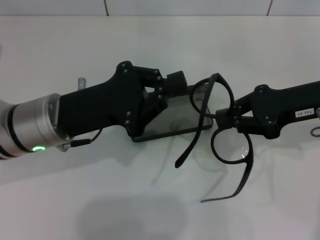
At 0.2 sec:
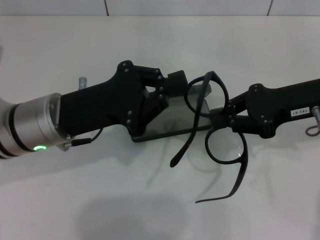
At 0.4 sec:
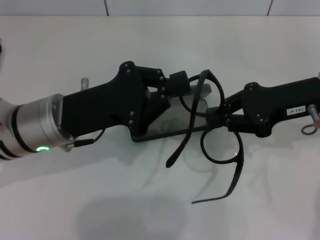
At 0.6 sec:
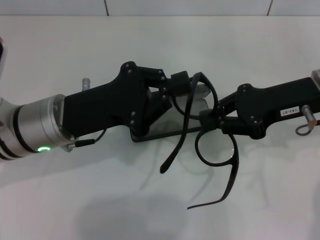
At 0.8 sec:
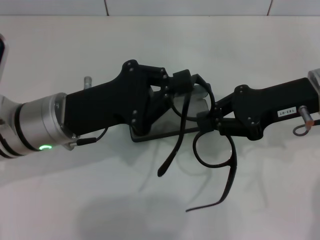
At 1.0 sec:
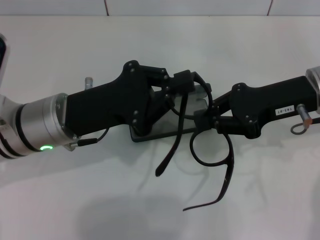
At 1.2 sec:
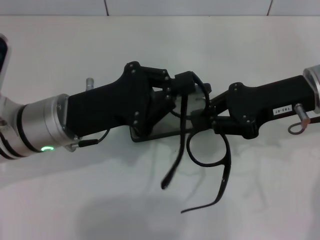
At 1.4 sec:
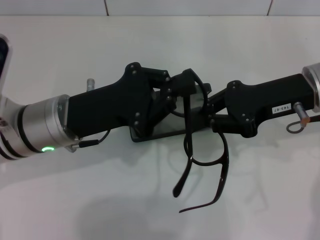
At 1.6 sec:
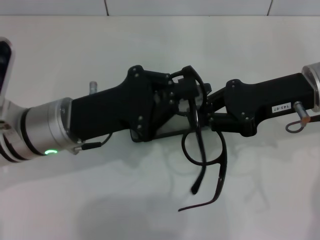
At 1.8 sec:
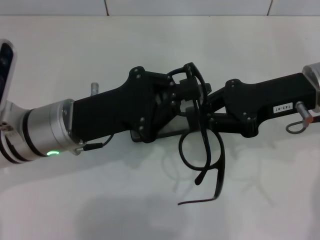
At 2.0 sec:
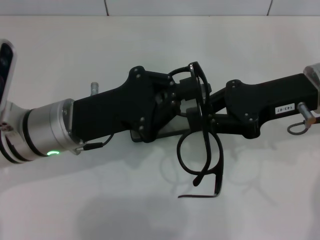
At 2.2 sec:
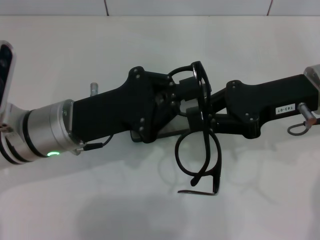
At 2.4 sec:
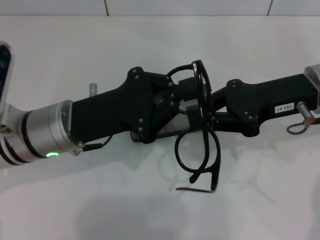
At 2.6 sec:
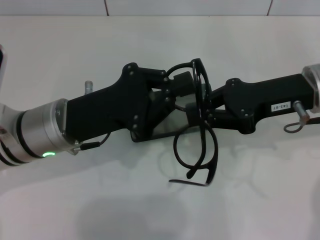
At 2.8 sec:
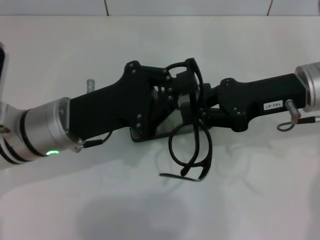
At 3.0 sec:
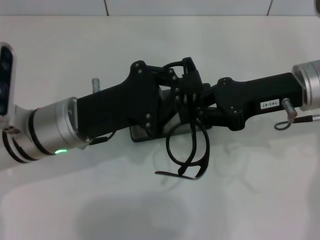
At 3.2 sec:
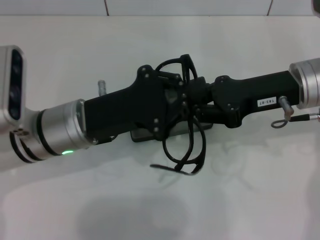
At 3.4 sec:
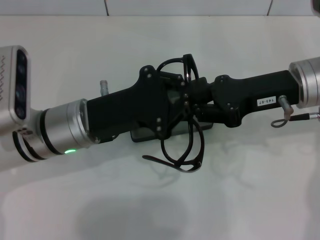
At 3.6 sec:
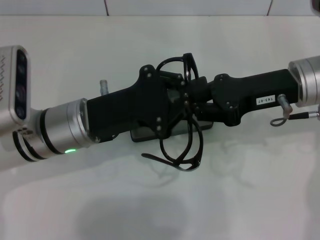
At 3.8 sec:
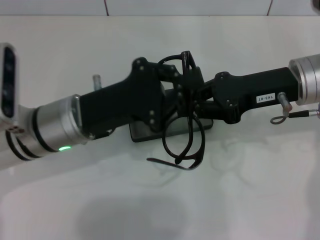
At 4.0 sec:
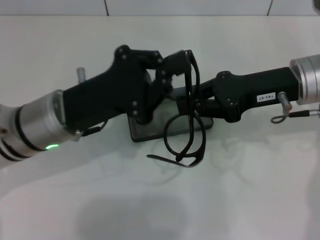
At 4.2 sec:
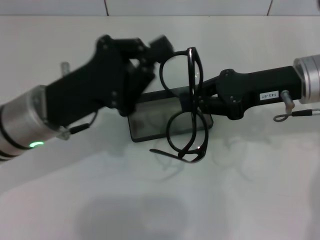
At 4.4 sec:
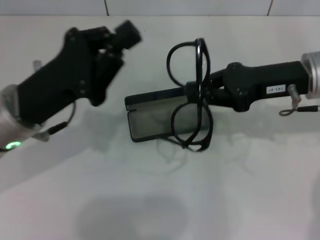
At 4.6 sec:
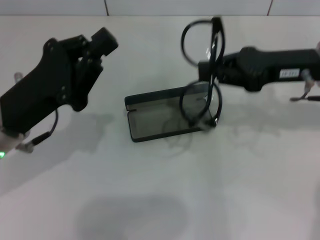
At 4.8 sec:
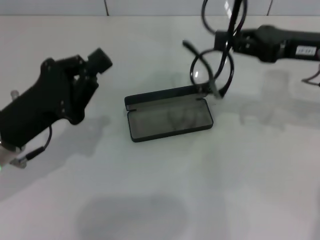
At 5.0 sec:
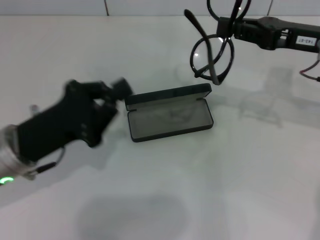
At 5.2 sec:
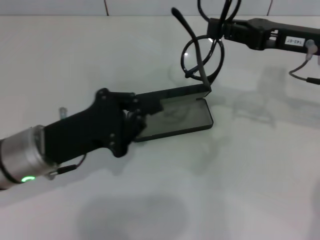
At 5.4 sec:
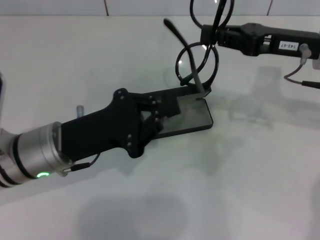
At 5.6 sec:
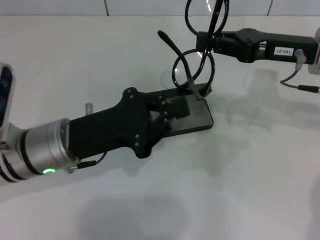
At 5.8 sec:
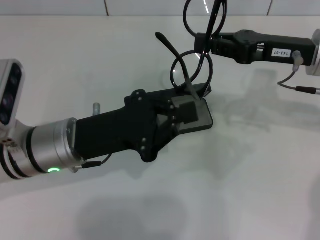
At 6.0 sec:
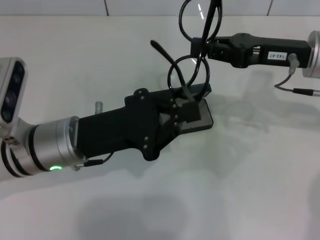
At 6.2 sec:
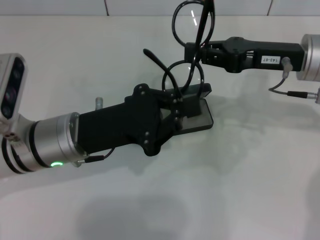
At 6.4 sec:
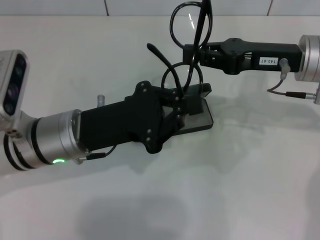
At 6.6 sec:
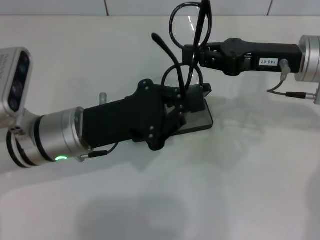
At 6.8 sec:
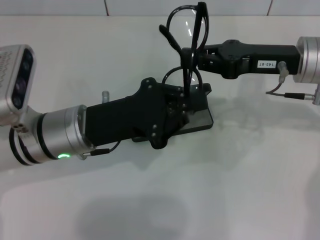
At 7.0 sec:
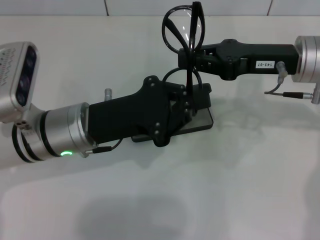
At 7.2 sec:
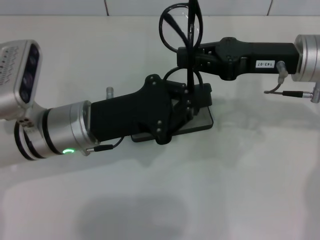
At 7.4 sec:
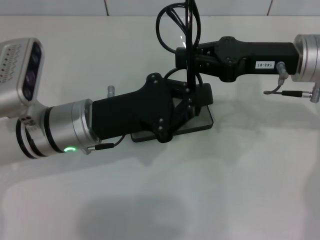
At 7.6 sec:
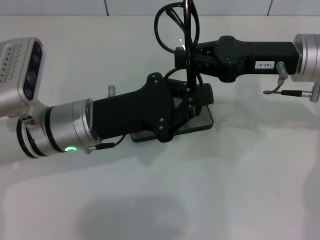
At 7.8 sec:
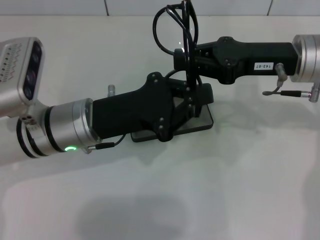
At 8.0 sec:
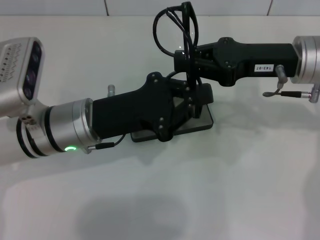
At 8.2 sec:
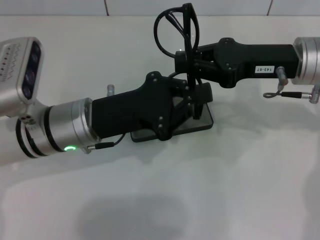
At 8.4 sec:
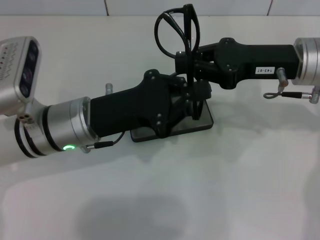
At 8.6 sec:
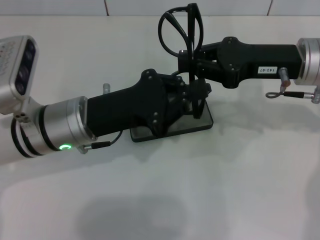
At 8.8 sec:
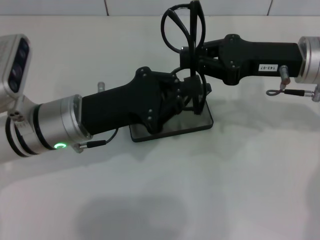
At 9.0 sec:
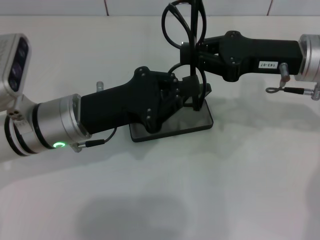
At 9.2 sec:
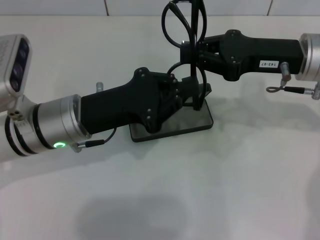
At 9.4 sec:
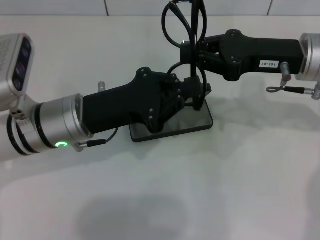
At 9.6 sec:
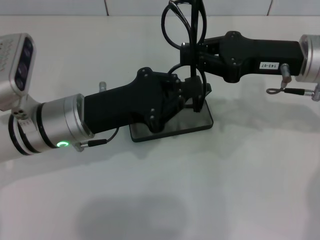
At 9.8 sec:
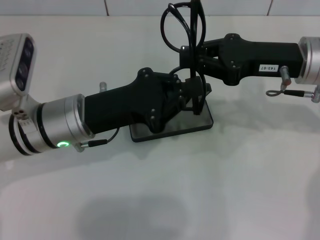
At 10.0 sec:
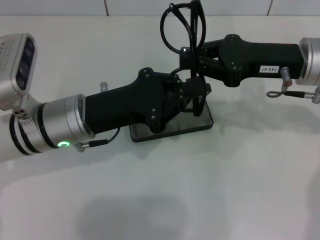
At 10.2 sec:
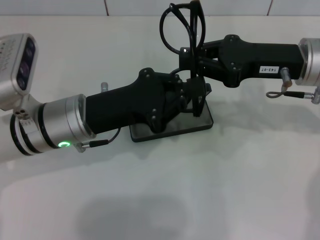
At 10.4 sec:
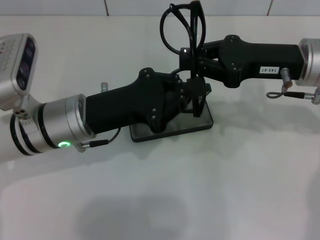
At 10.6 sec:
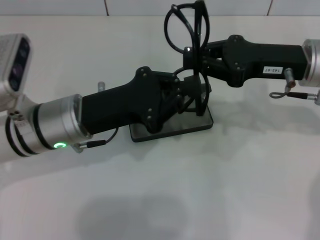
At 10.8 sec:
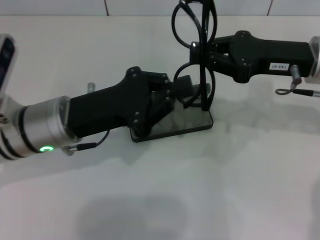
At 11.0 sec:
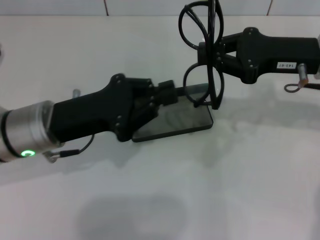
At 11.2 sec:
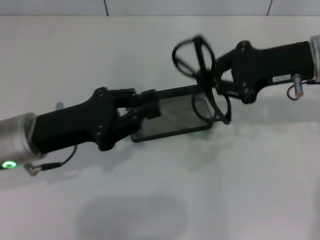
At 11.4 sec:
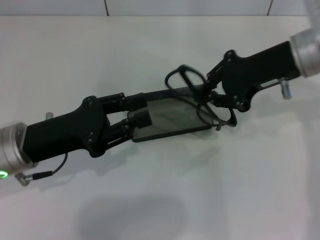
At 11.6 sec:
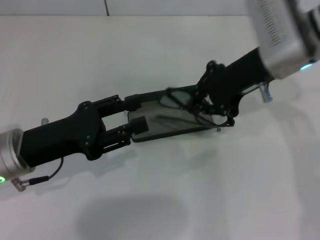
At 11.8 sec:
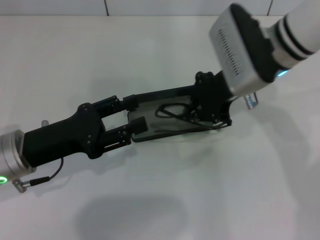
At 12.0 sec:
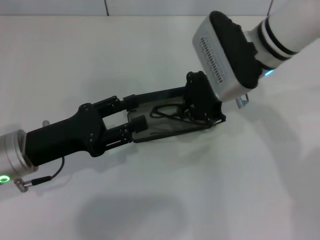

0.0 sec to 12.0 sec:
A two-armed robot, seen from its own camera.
Step, 0.0 sec to 10.2 sec: Fold the frame with your left hand.
0.0 sec to 3.0 sec: There are only small adjustments of the grippers.
7.6 sec to 9.0 sec: The grippers make only small movements.
9.0 sec to 10.4 sec: The two grippers keep their place.
10.4 sec to 12.0 sec: Both grippers move to the left, approximately 10 cm. The left gripper opens its fingers.

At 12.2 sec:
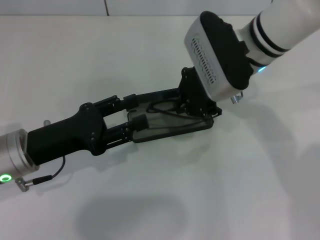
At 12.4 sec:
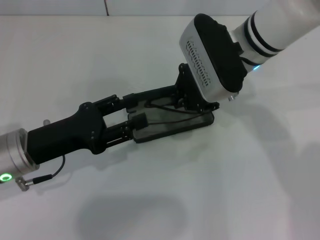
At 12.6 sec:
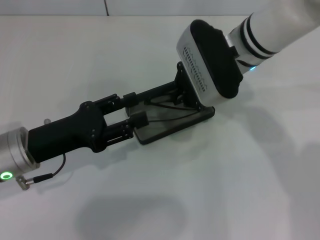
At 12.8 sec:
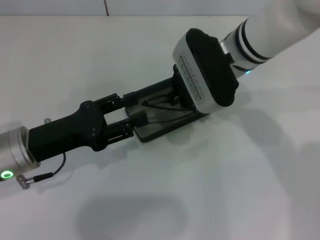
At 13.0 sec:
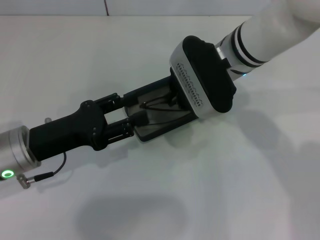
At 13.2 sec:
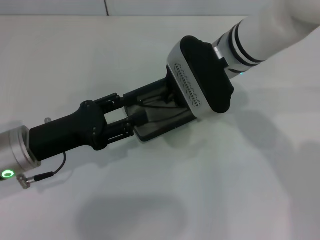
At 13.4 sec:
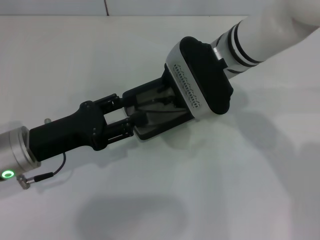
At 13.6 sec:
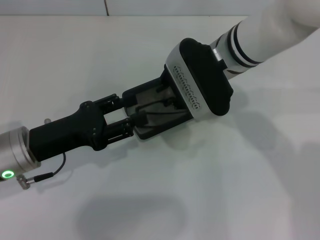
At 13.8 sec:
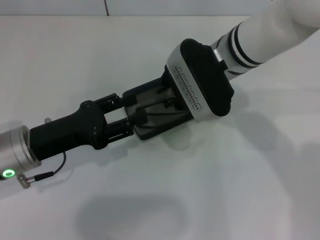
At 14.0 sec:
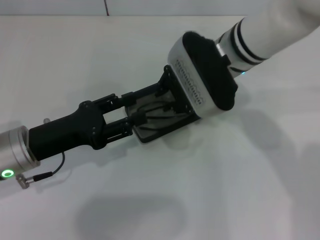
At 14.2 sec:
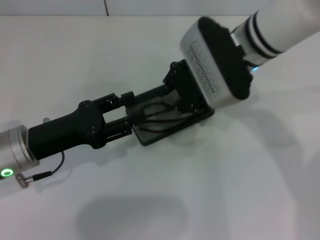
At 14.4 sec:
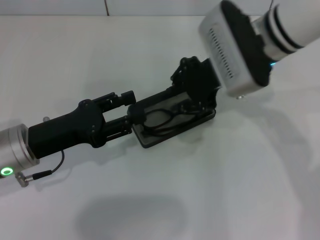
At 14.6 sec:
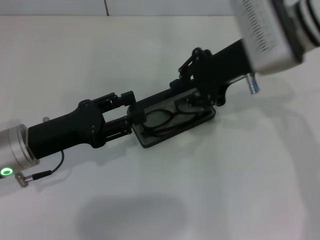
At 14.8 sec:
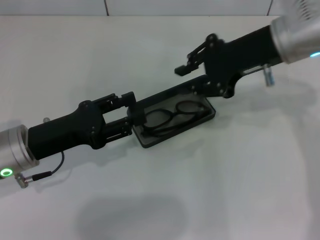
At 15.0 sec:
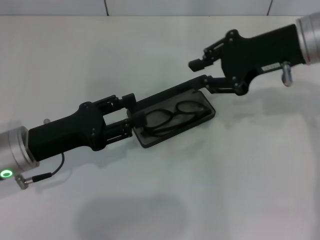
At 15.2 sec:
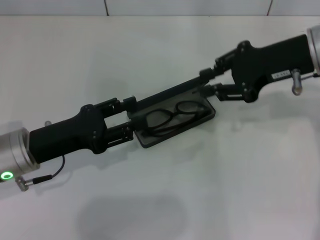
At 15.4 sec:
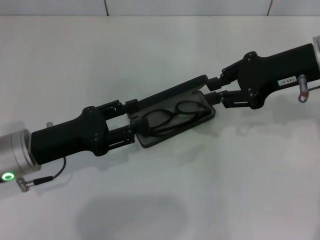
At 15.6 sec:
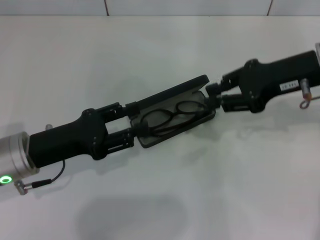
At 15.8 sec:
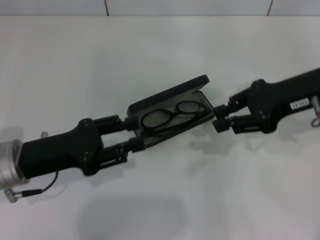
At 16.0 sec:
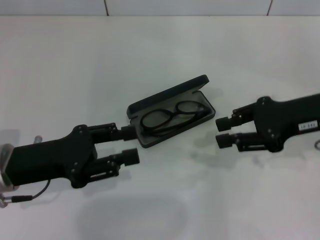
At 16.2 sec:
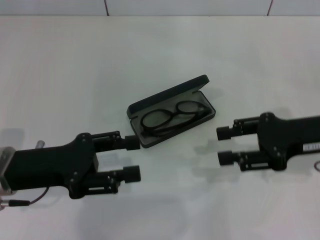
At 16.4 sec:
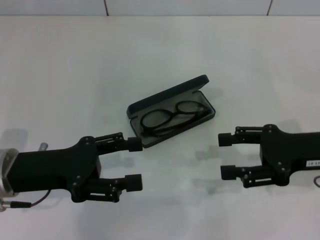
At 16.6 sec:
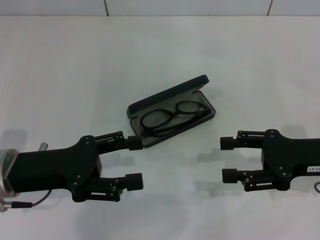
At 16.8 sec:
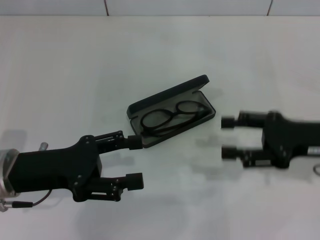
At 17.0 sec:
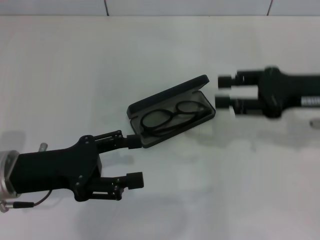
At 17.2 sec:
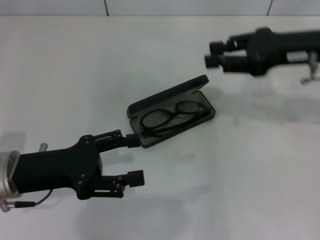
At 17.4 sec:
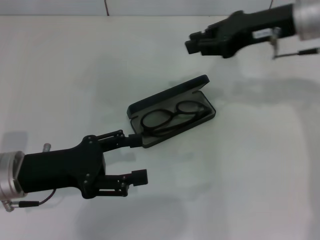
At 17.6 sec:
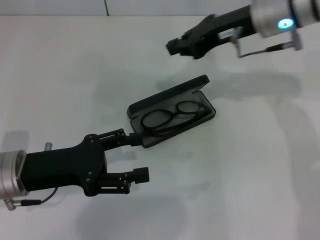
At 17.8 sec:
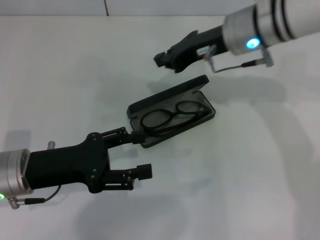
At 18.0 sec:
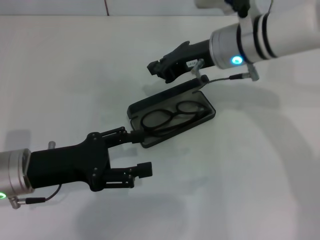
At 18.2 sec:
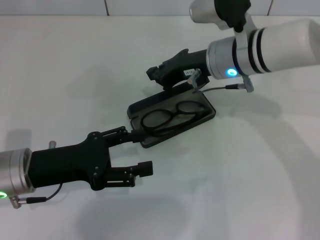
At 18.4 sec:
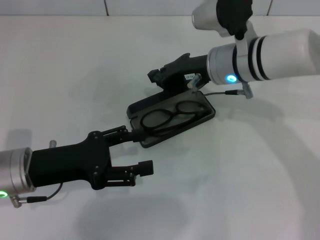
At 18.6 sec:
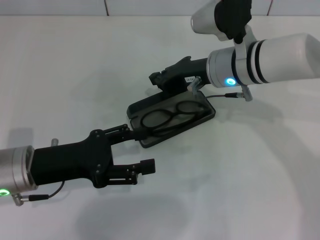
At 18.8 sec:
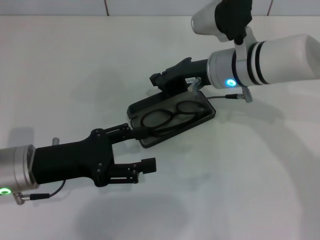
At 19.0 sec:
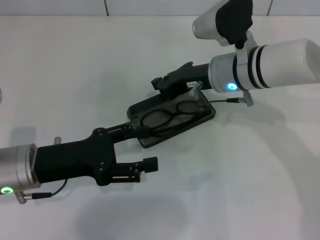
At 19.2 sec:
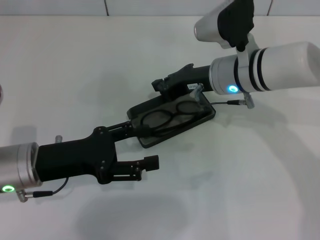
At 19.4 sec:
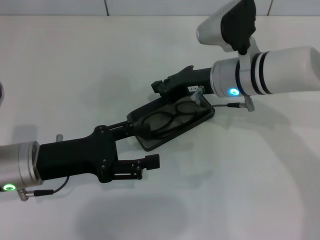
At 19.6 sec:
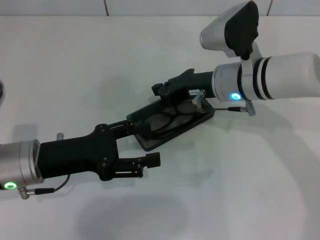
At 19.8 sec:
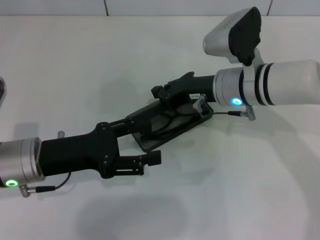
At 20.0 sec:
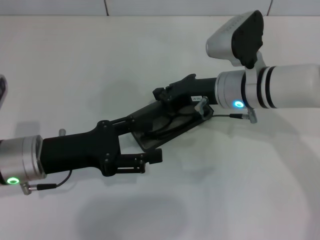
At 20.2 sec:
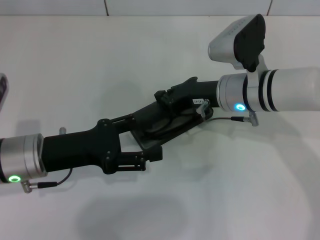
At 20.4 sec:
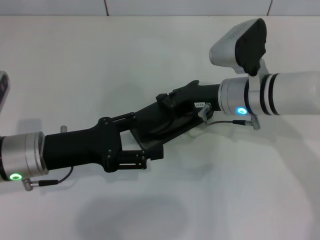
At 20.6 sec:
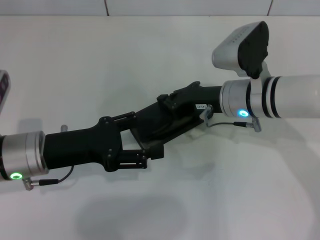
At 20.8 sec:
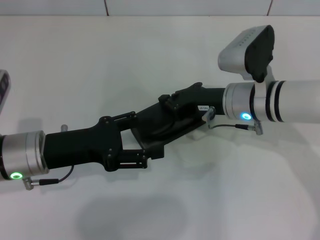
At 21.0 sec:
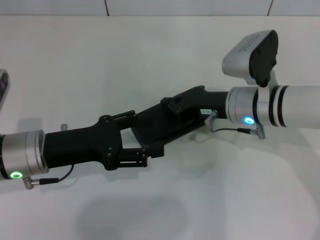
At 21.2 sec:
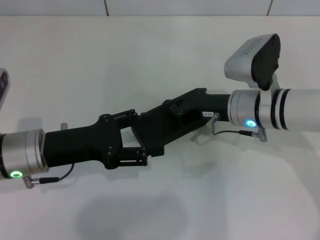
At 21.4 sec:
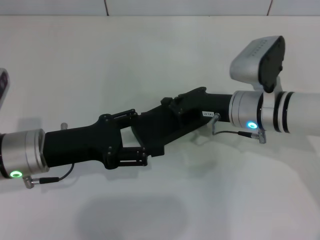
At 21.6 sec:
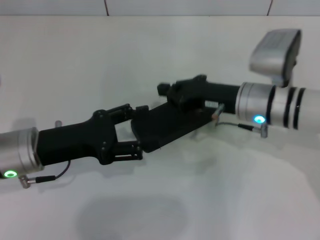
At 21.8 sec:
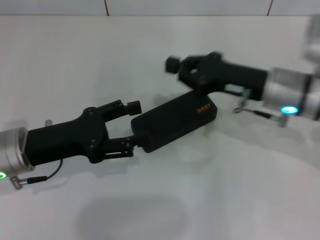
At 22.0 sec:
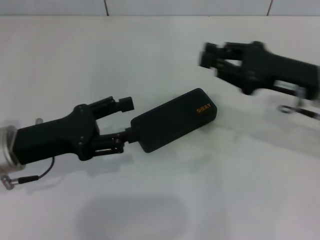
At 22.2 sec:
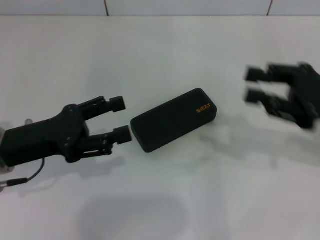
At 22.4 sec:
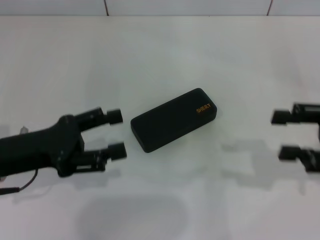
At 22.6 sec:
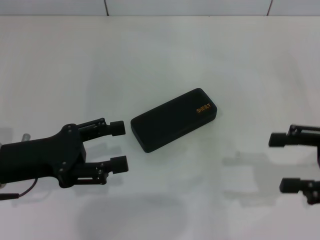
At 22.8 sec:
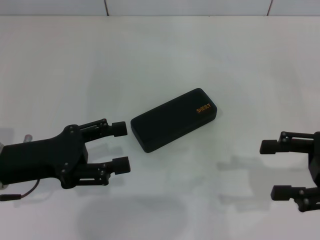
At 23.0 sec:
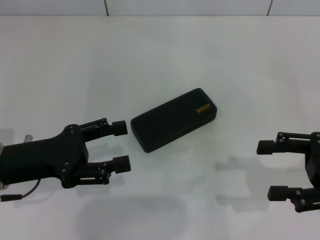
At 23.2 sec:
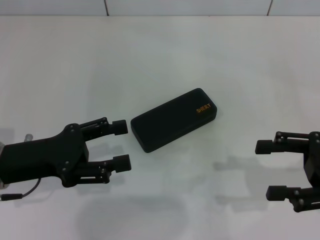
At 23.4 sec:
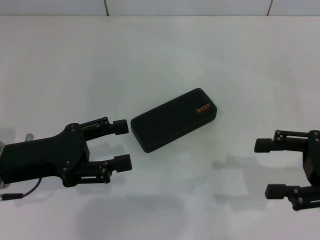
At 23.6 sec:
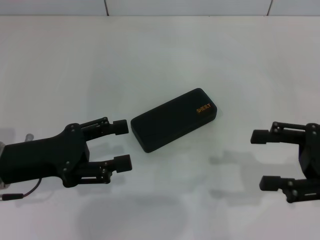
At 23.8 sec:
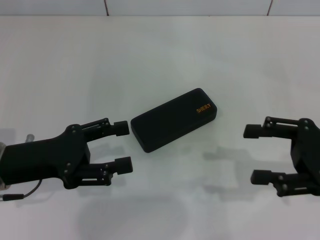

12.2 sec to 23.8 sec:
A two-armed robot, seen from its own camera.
Step, 12.2 sec to 14.2 sec: Put the glasses into the case with your right hand.
Step, 14.4 sec to 21.2 sec: Close the glasses case with your right hand.
12.2 sec to 13.6 sec: There are only small adjustments of the grippers.
13.6 sec to 15.0 sec: The right gripper goes some 15 cm to the right.
15.0 sec to 16.6 sec: The right gripper shifts some 15 cm downward, backward and to the right, and opens.
16.6 sec to 18.0 sec: The right gripper shifts some 20 cm to the left and forward, and closes.
18.0 sec to 19.4 sec: The grippers stay close to where they were, moving slightly.
19.4 sec to 21.0 sec: The right gripper changes place by roughly 5 cm.
21.0 sec to 22.4 sec: The left gripper shifts by roughly 5 cm, while the right gripper goes about 20 cm to the right and backward, and opens up.
22.4 sec to 23.8 sec: The grippers stay close to where they were, moving slightly.
